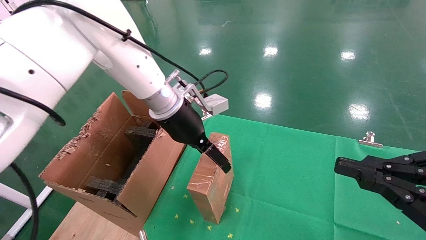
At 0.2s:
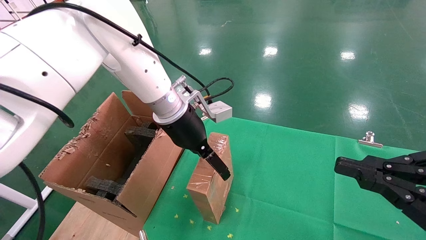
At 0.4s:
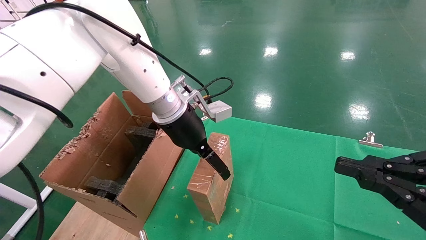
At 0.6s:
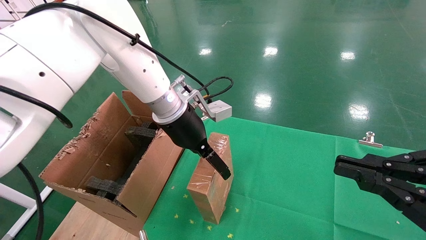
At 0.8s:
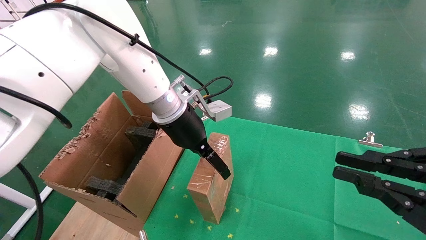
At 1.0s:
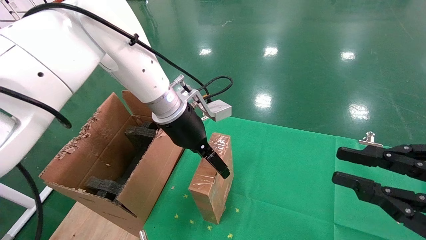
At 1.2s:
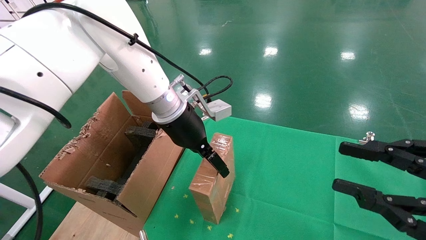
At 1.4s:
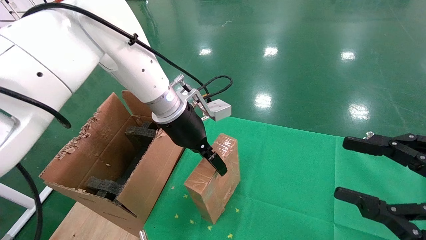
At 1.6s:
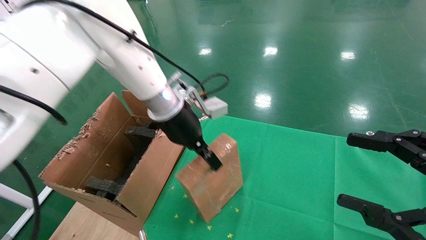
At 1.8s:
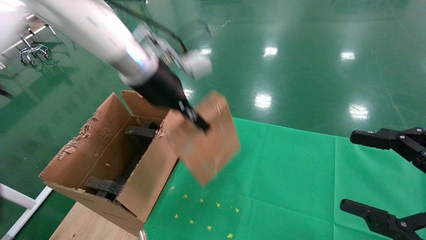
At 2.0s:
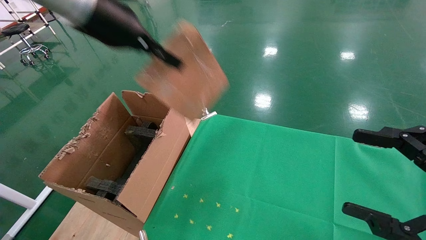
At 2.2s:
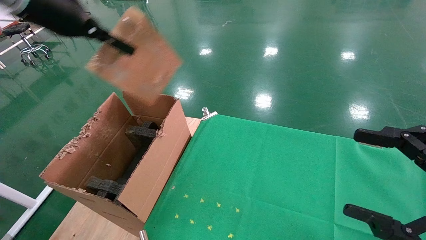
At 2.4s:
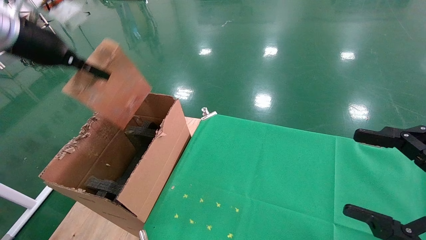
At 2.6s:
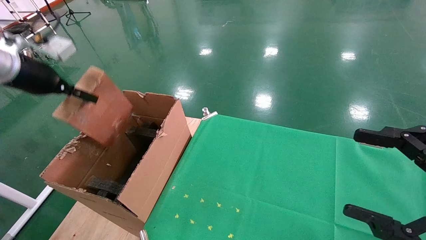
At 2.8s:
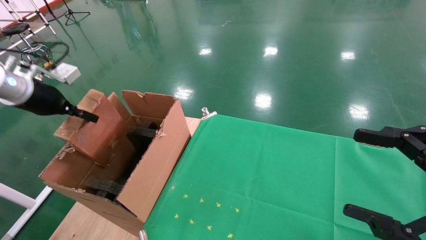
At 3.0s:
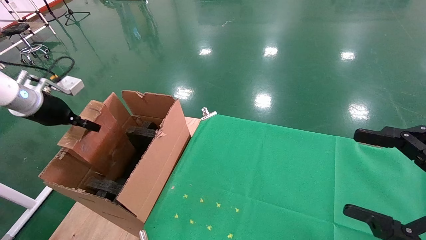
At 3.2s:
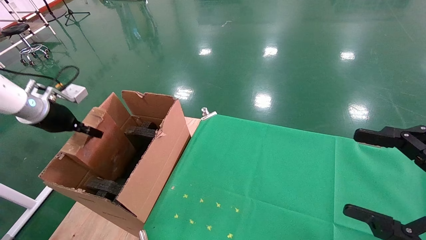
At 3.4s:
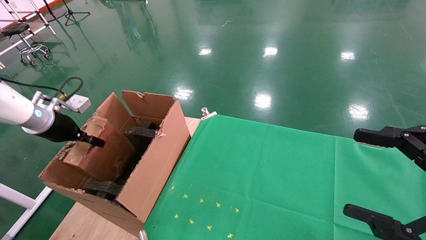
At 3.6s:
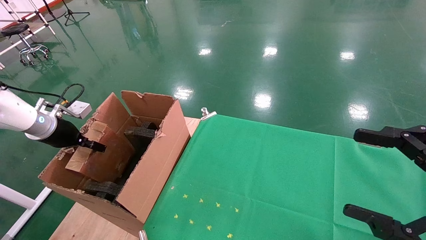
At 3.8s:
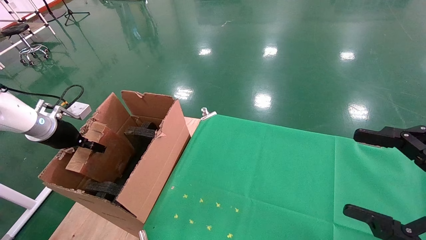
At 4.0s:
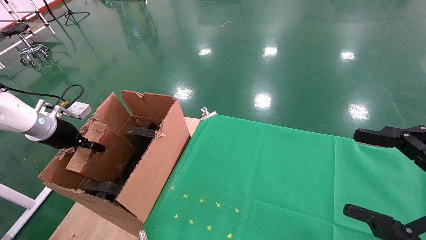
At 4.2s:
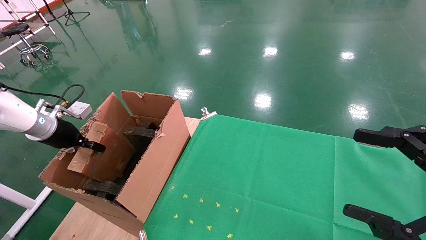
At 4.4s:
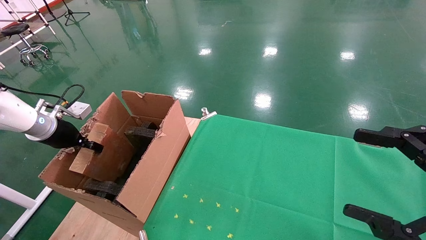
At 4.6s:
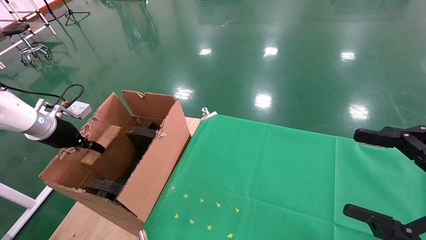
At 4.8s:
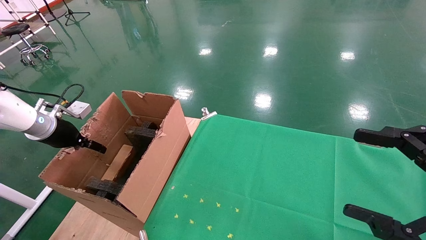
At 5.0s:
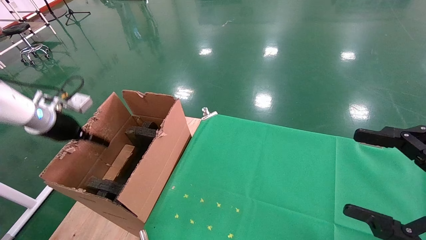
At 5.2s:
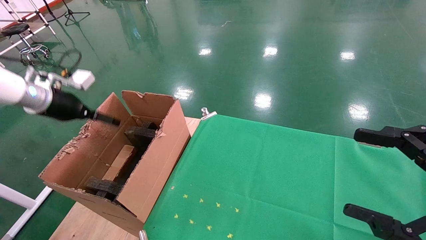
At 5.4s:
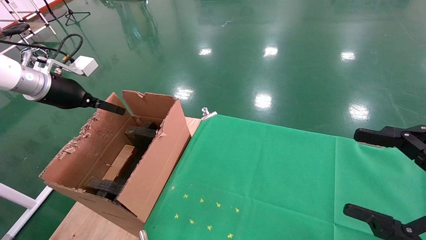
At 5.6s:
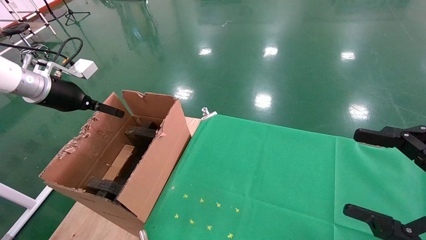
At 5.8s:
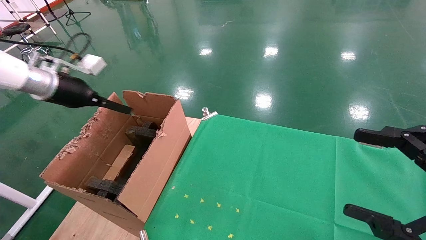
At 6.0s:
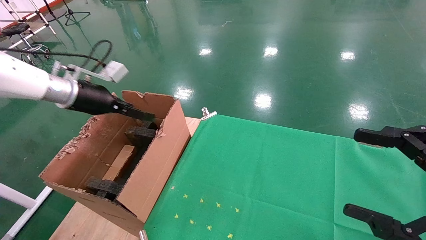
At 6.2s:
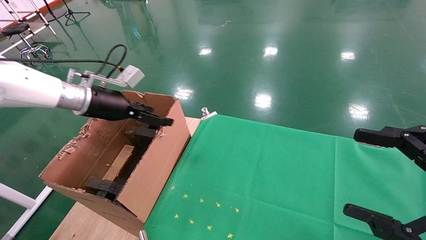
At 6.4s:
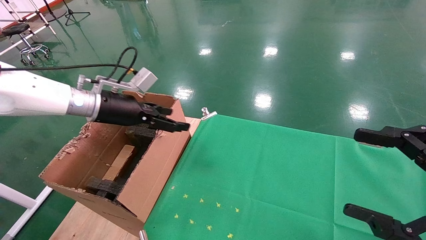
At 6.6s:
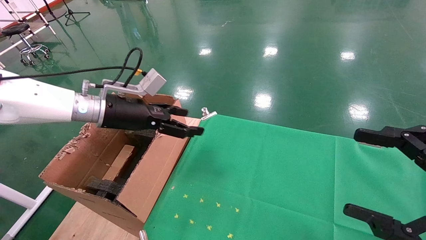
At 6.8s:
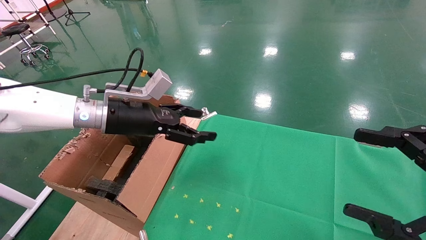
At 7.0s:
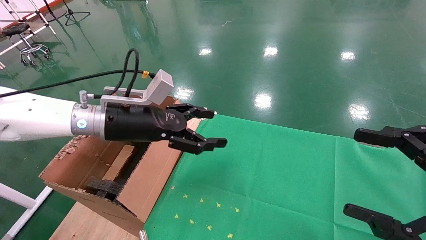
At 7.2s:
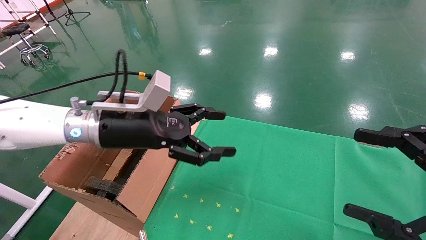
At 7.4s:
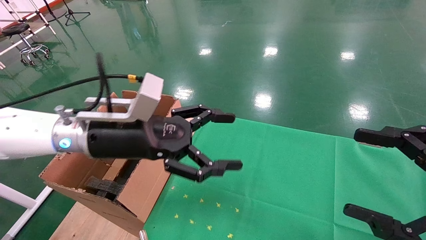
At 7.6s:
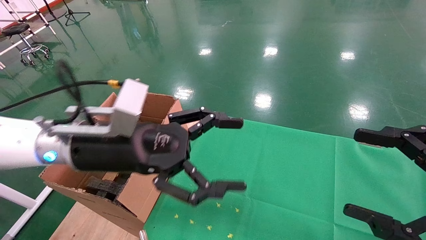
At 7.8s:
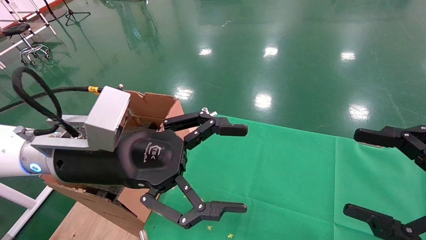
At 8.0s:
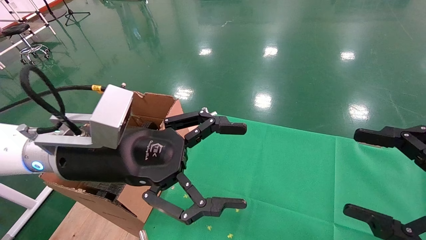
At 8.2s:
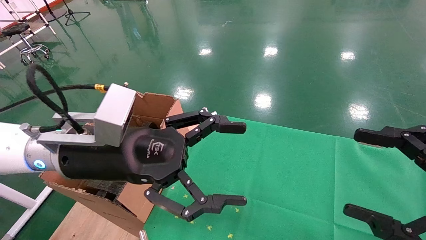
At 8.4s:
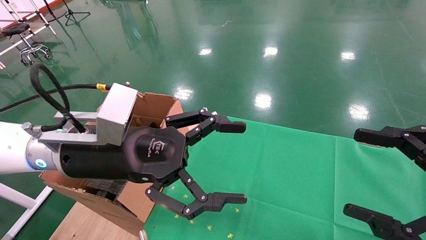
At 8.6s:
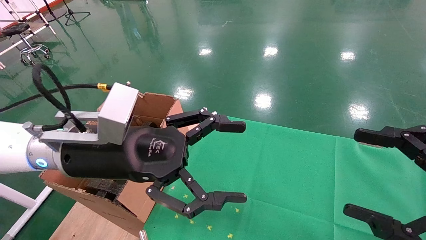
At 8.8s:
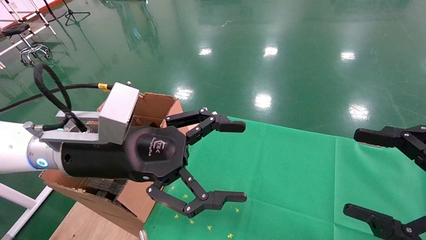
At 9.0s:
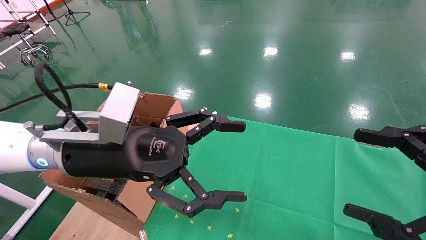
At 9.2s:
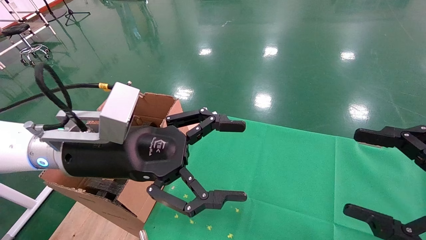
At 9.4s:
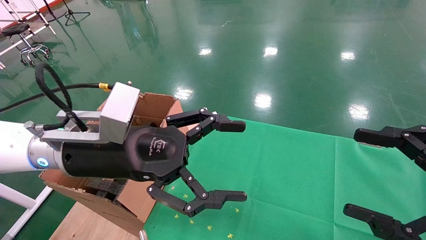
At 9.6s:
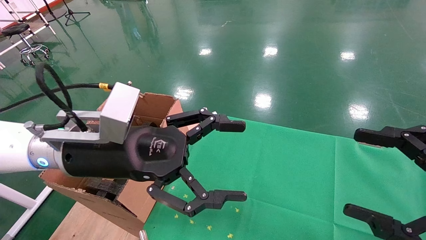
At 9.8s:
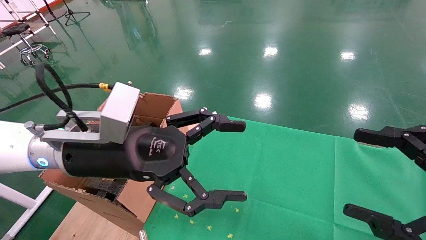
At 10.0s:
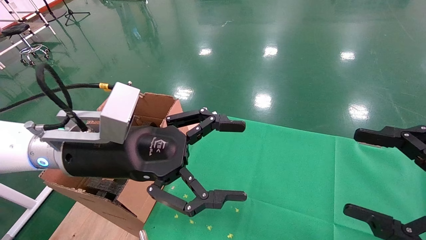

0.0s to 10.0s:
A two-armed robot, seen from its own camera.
Task of the whole recording: using a robotic arm to pick up a cardboard box and palace it the carton.
Step, 1.8s to 5.4s: Place the mouse and the power cord paper box into the container.
0.0s to 1.4s: The left gripper closes its fingers, while the right gripper opens its fingers.
1.4s to 2.8s: The right gripper opens. Meanwhile the left gripper travels to the left by some 30 cm, and closes up.
2.8s to 4.2s: The left gripper heads downward, covering approximately 10 cm.
4.2s to 5.8s: The left gripper moves upward and to the right, about 10 cm, and opens up.
5.8s to 7.2s: The left gripper moves to the right, approximately 20 cm.
7.2s to 8.6s: The left gripper travels backward by about 5 cm.
8.6s to 10.0s: Both grippers stay about where they are.

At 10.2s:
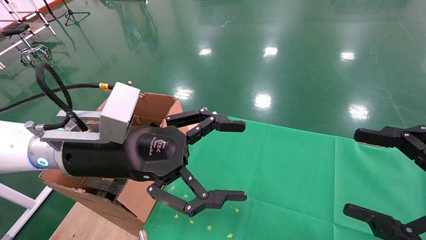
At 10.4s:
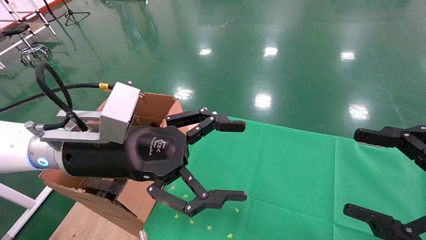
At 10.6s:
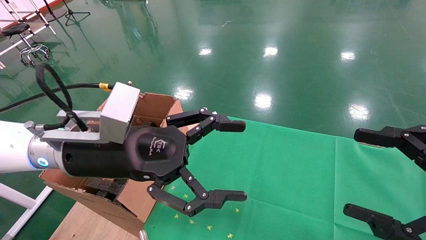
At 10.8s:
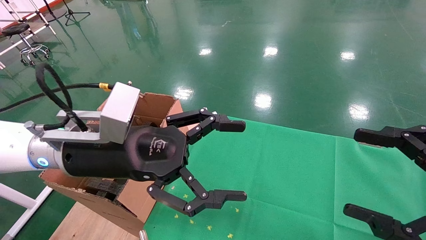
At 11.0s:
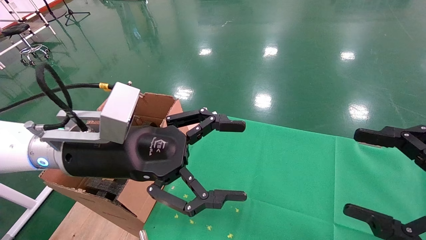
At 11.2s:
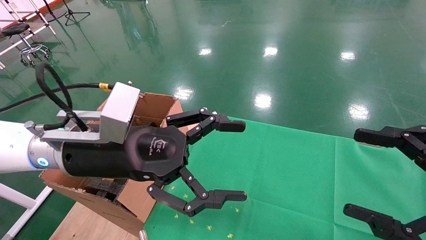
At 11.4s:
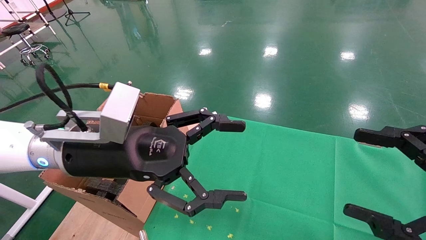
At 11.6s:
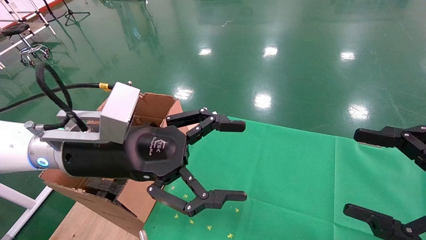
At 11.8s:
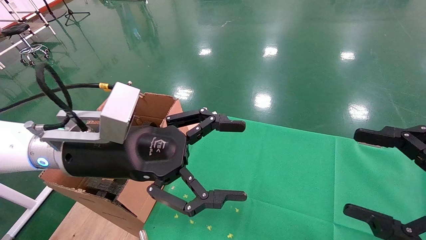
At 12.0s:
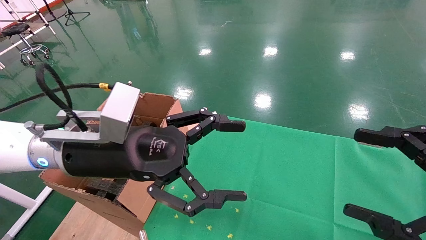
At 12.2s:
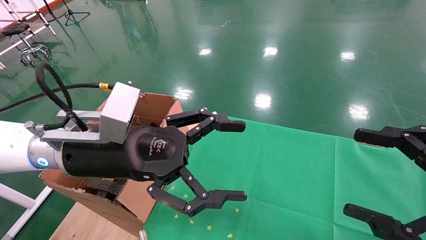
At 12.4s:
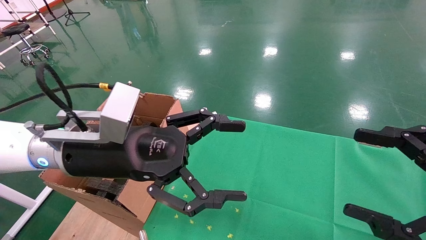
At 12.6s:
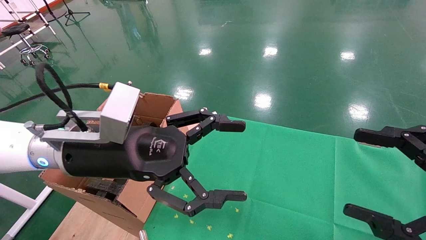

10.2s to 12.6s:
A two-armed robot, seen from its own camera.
Task of the whole recording: using a robotic arm to pick up a cardboard box and palace it the carton.
10.2s to 12.6s: Neither gripper changes place.
